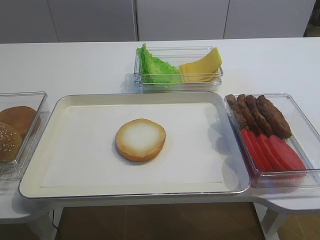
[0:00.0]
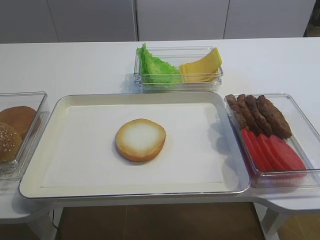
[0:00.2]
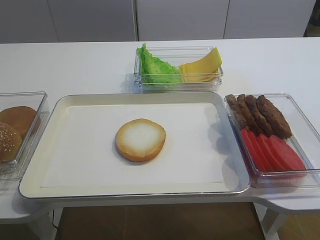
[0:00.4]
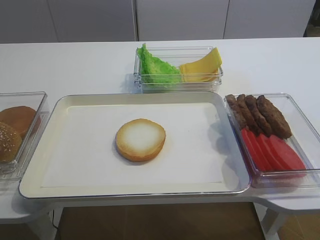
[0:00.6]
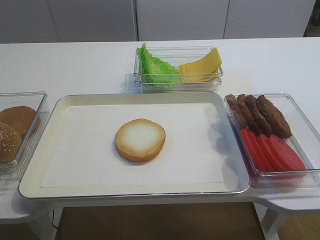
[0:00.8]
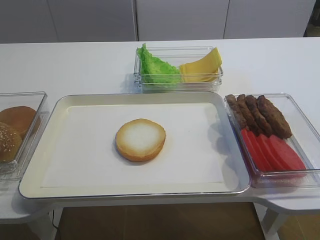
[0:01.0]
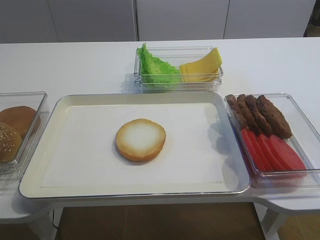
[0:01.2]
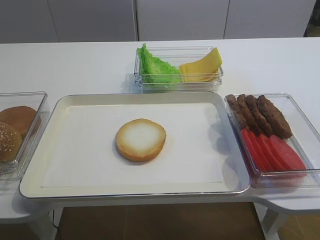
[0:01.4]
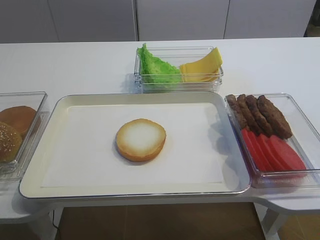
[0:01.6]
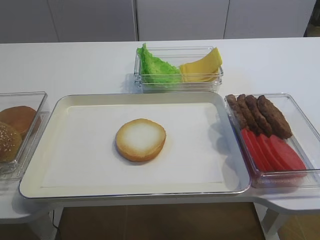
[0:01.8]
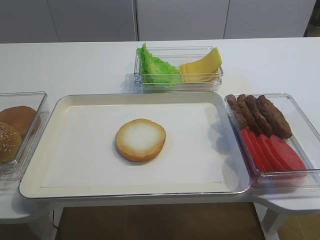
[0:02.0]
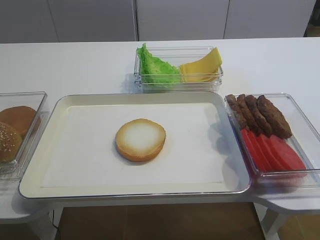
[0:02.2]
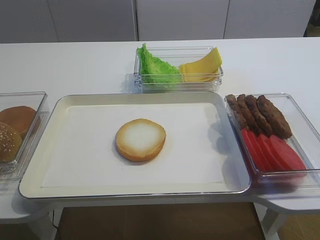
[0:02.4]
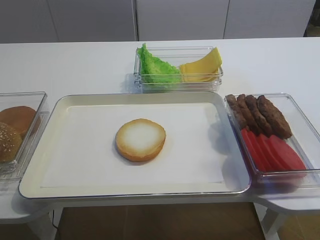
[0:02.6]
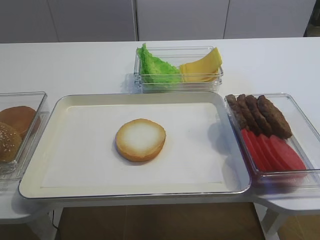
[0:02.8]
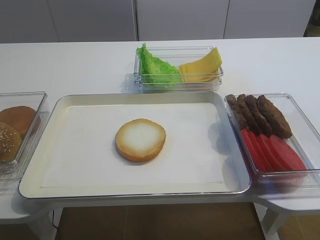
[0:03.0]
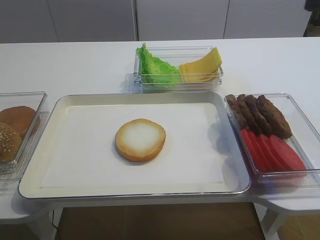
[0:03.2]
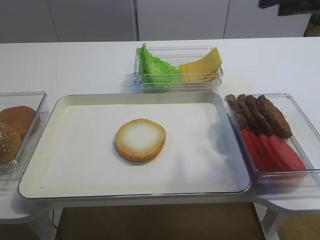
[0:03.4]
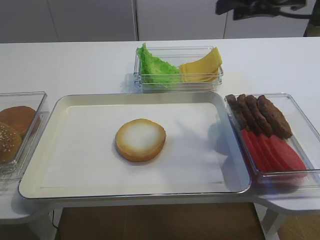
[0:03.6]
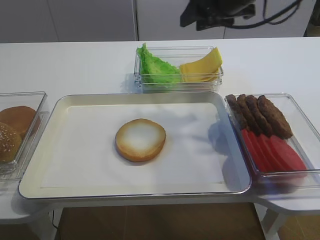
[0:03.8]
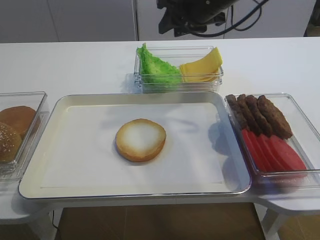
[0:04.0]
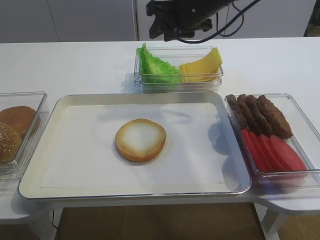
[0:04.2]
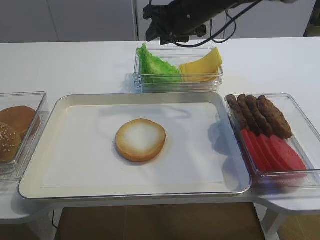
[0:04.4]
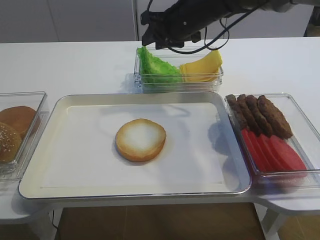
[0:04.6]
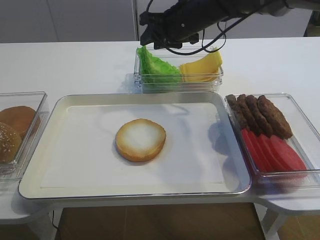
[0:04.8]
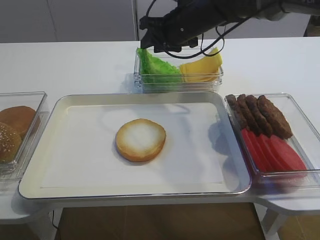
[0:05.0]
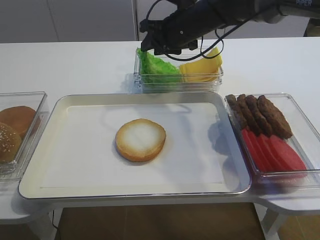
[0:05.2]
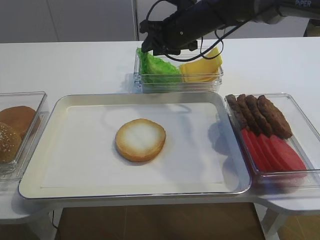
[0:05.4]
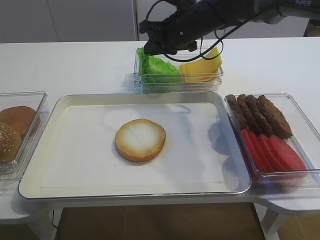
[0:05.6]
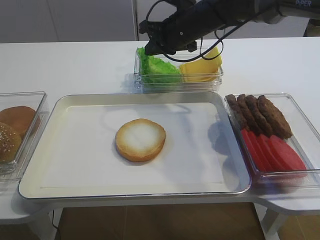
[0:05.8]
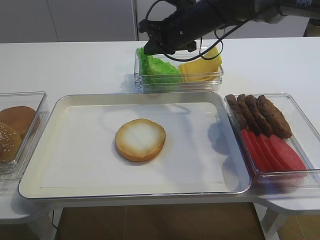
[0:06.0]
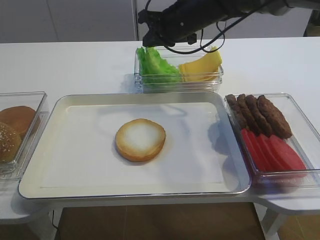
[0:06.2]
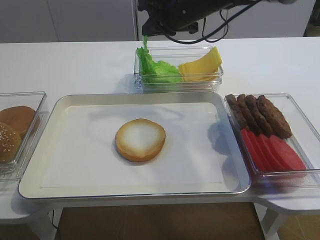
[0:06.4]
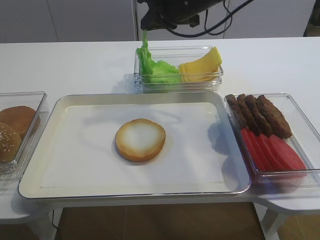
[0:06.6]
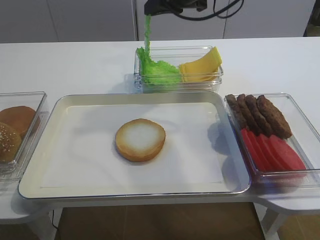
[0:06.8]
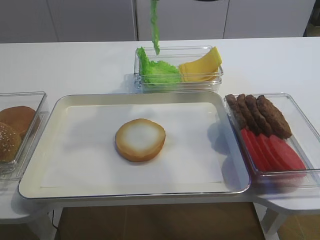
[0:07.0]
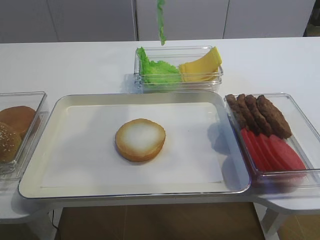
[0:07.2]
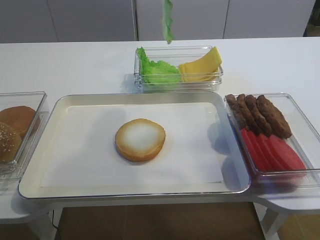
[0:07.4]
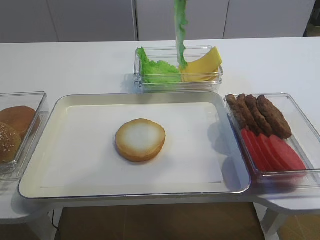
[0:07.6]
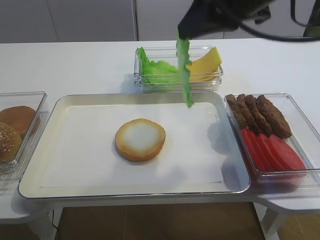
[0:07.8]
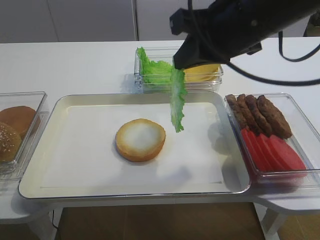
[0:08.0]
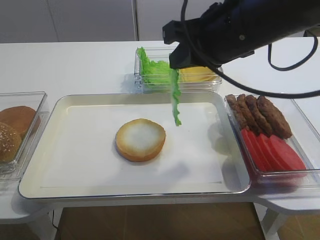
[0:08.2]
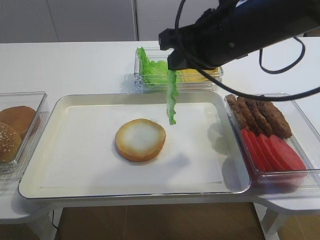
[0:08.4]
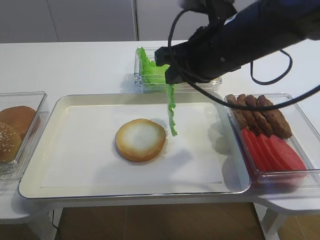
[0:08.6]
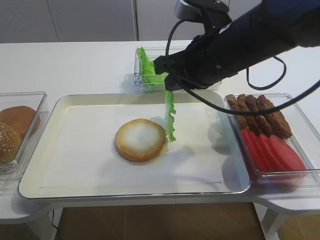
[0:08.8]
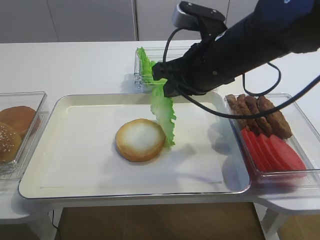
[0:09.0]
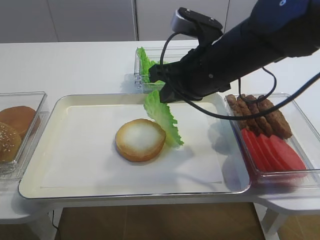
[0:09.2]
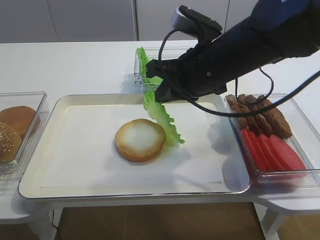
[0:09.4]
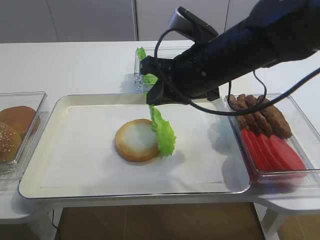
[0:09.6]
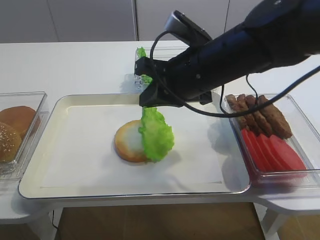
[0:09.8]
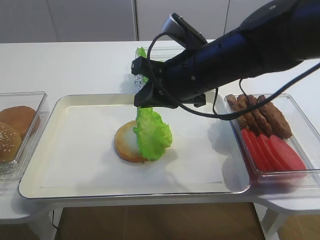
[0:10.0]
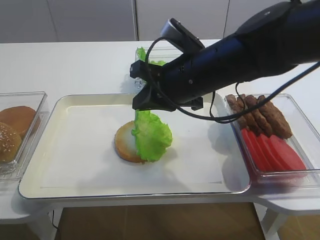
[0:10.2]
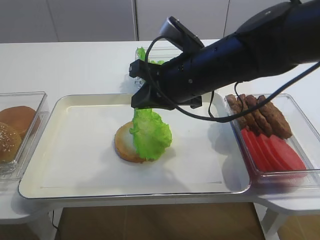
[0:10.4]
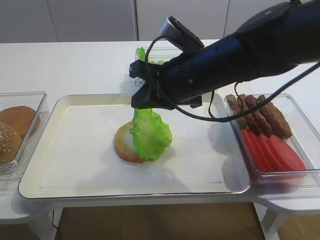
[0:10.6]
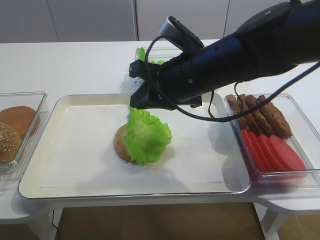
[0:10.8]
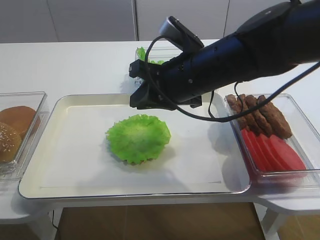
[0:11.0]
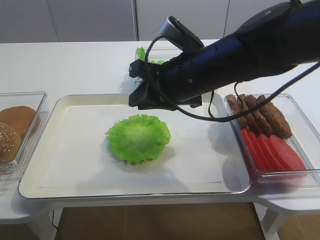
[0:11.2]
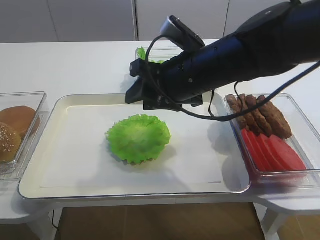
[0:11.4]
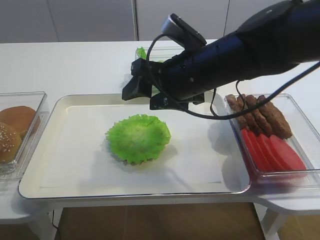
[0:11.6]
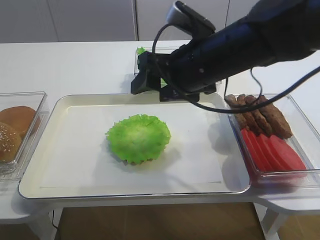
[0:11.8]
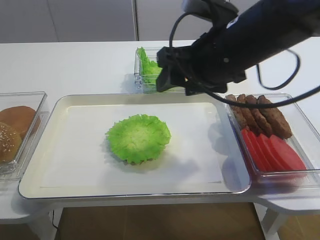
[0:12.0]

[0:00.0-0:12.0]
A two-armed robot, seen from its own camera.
Step, 0:00.0 to 0:06.8: Pick up the lettuce leaf with the right gripper.
Step, 0:07.0 to 0:11.4: Place the lettuce leaf on the bread slice with the right gripper.
0:01.6 to 0:03.0: The right gripper heads forward and upward, covering approximately 20 cm, and opens up.
0:03.0 to 0:04.4: The right gripper moves forward and to the left, roughly 35 cm.
0:04.4 to 0:06.0: The right gripper closes.
0:06.0 to 0:07.6: The right gripper shifts some 25 cm upward and backward.
0:07.6 to 0:09.0: The right gripper moves downward, roughly 15 cm.
0:10.4 to 0:12.0: The right gripper moves about 5 cm, and opens.

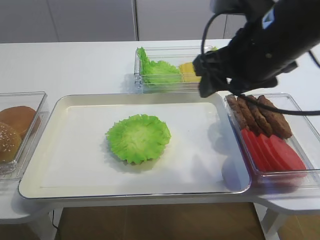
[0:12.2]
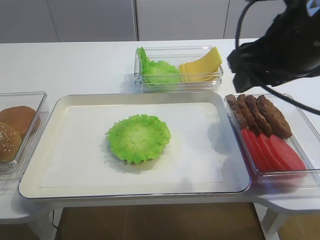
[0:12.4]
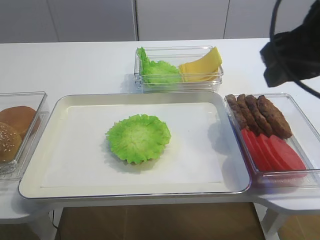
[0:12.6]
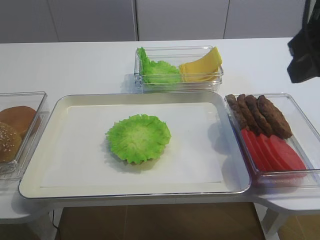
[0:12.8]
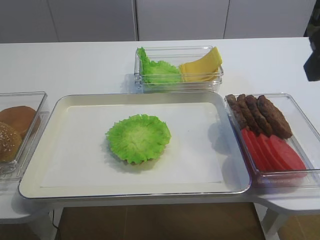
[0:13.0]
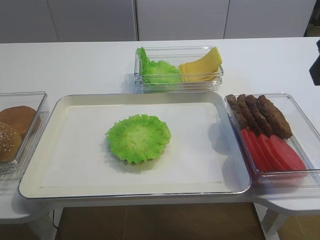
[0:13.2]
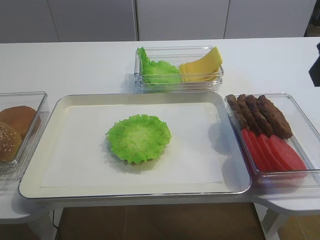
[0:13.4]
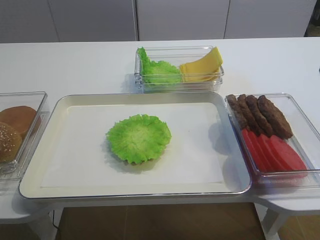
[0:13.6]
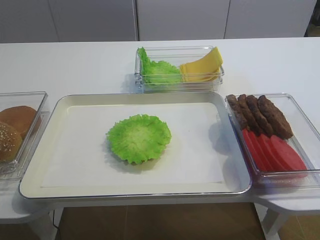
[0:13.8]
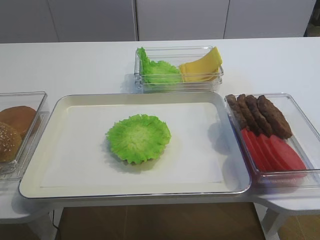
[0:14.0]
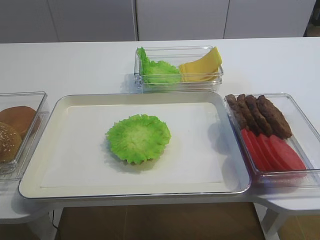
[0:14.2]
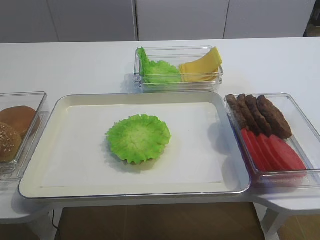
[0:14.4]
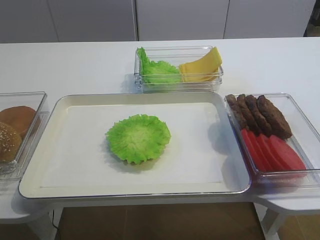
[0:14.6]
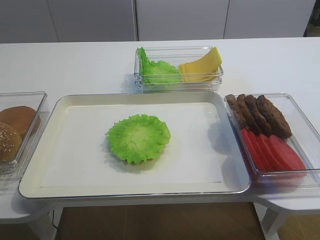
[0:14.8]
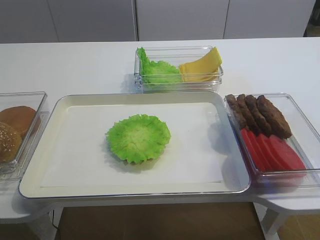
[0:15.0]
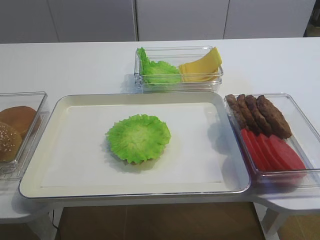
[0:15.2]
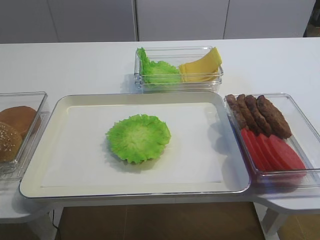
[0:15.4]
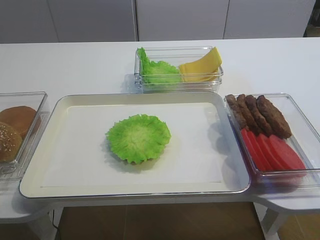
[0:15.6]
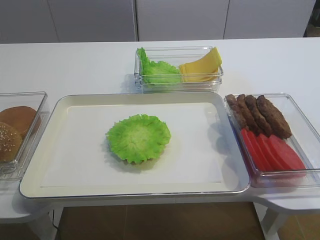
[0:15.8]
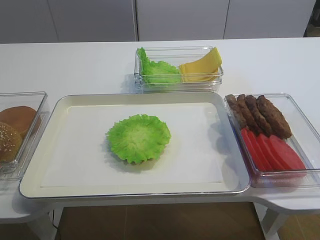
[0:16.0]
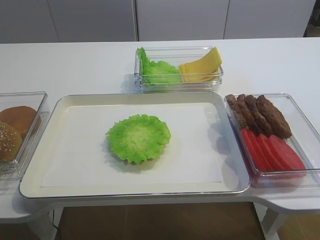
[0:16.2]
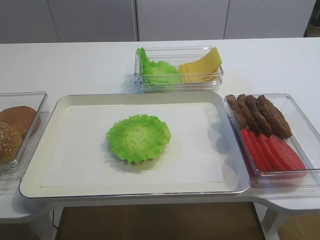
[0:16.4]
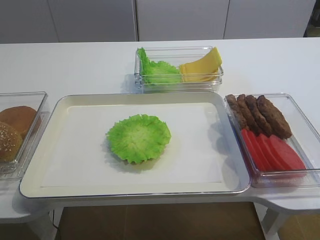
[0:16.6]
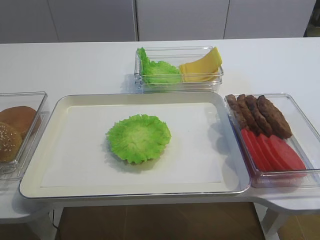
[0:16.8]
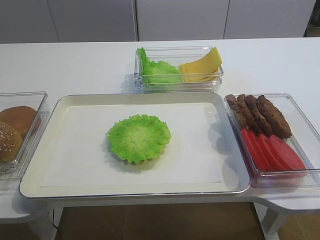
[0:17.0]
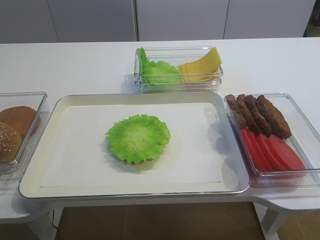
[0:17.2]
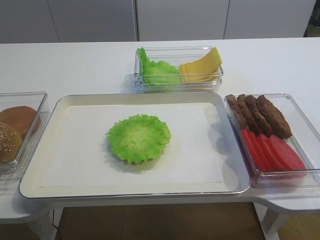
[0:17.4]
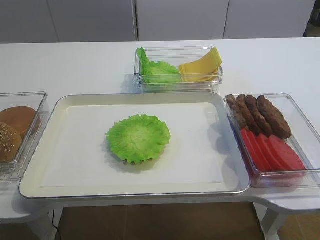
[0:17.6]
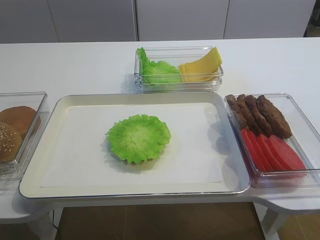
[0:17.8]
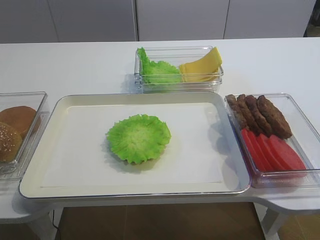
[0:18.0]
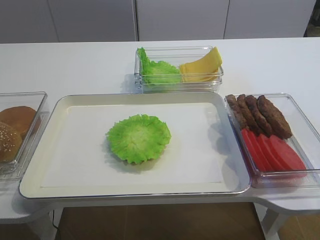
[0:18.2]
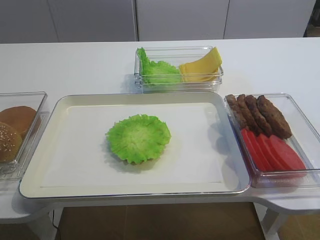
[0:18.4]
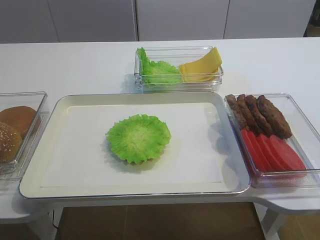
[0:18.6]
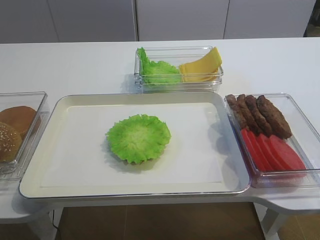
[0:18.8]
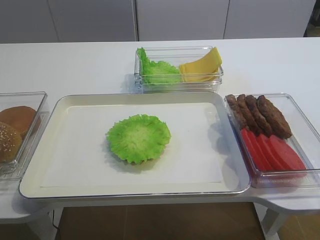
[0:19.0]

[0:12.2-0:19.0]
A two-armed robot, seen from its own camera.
0:12.2 to 0:13.6: The right gripper heads to the right, backward and upward, covering approximately 15 cm.
0:13.6 to 0:15.0: The right gripper goes about 10 cm backward and to the right.
0:15.0 to 0:16.2: The right gripper moves downward and backward, about 15 cm.
0:17.6 to 0:19.0: Both grippers stay about where they are.

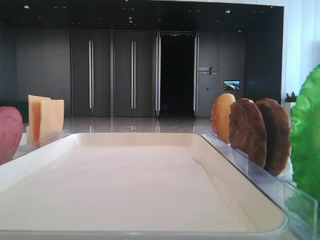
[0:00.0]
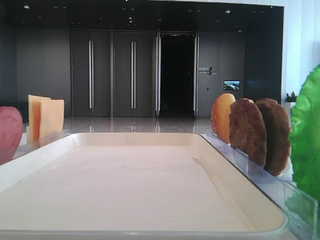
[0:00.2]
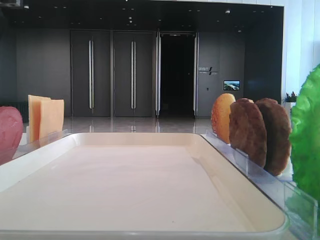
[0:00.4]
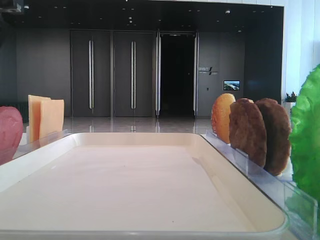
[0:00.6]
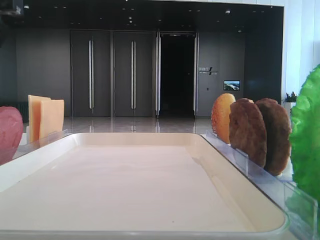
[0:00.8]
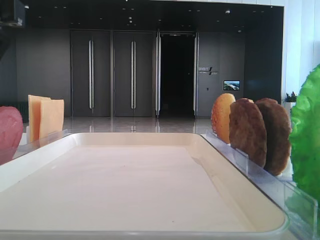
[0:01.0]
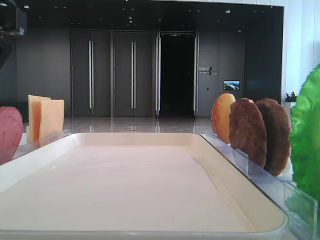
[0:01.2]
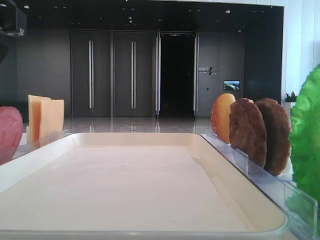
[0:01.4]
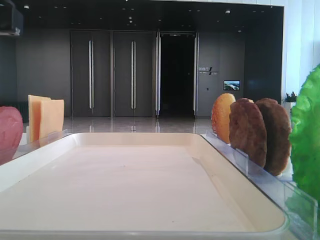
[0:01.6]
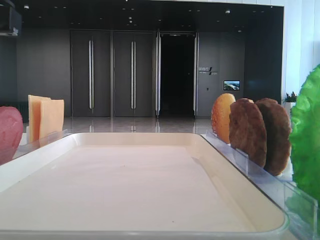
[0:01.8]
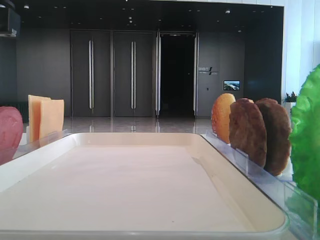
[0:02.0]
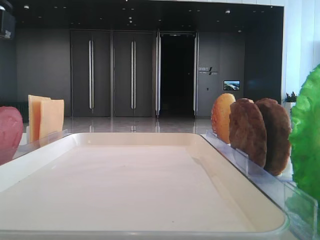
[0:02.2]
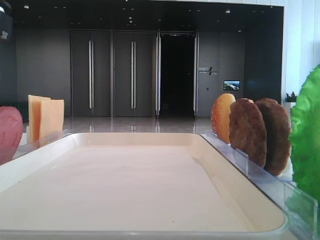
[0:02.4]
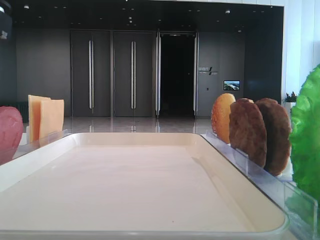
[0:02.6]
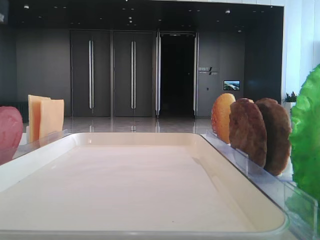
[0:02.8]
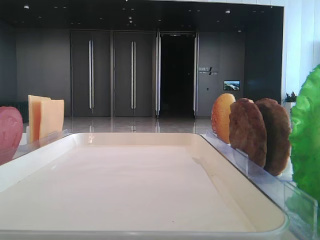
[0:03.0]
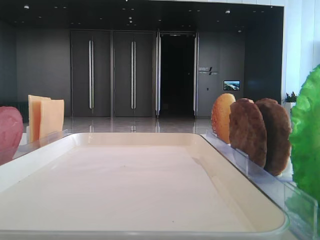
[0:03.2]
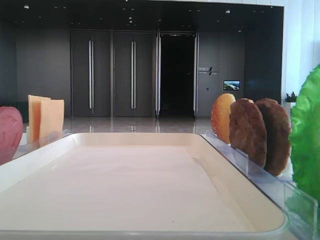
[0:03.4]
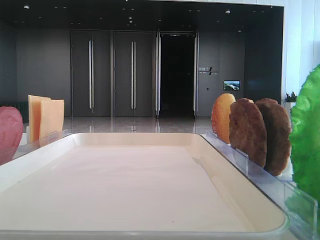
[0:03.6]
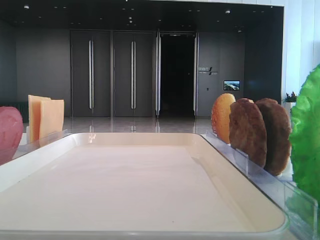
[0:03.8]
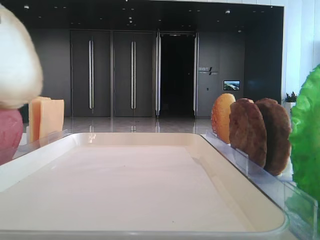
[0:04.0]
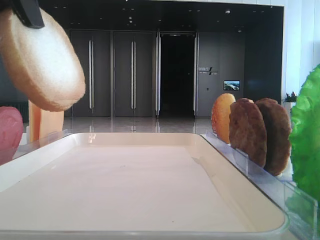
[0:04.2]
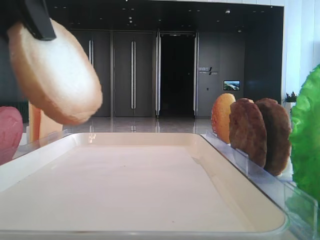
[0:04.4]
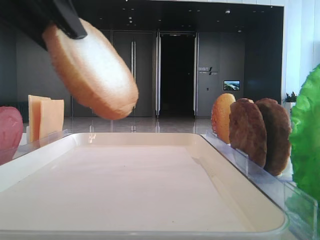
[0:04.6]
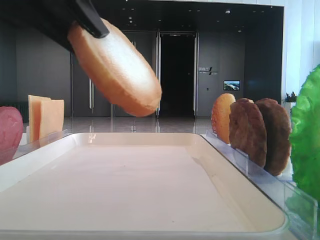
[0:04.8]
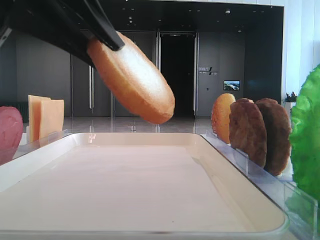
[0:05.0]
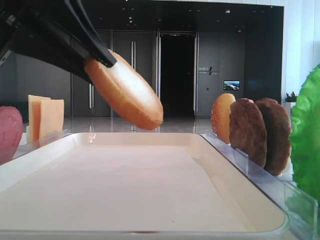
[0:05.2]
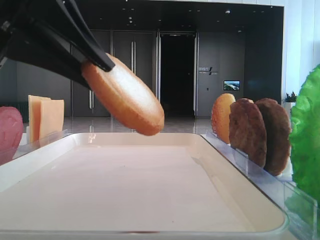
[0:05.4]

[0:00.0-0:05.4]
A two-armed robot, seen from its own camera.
0:02.8 to 0:04.0: The left gripper goes approximately 5 cm upward.
0:04.0 to 0:05.4: The left gripper shifts roughly 10 cm downward.
